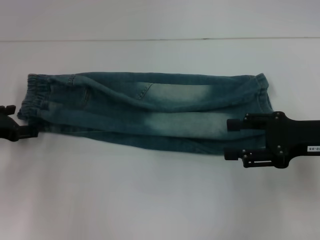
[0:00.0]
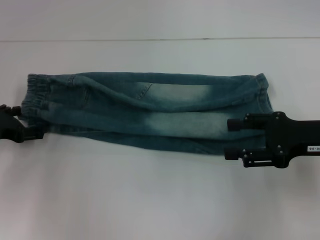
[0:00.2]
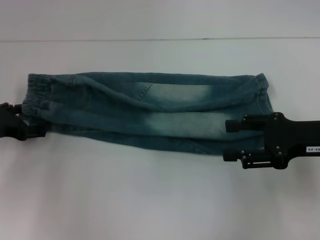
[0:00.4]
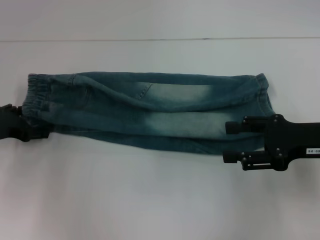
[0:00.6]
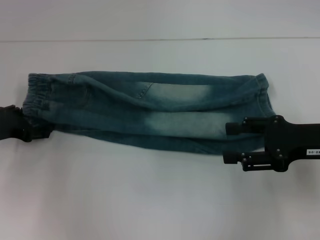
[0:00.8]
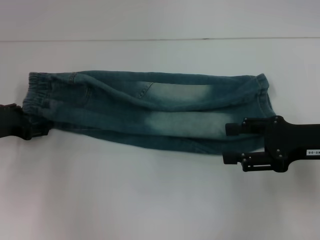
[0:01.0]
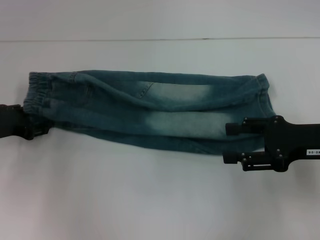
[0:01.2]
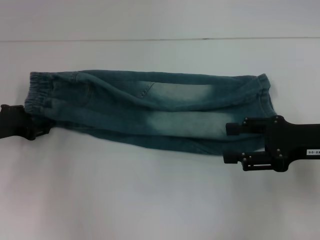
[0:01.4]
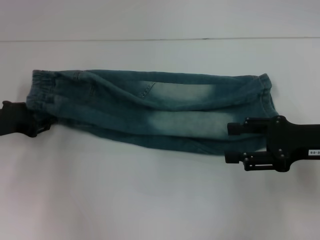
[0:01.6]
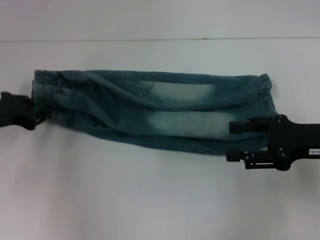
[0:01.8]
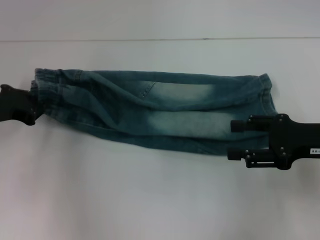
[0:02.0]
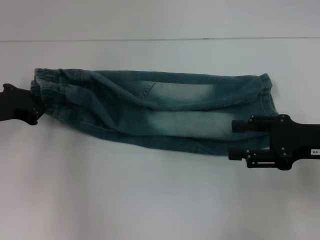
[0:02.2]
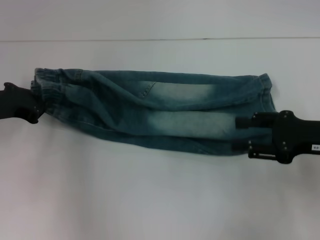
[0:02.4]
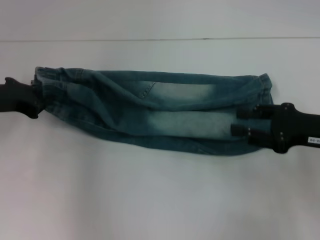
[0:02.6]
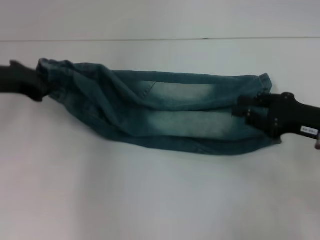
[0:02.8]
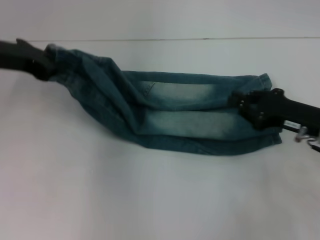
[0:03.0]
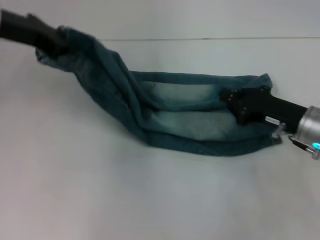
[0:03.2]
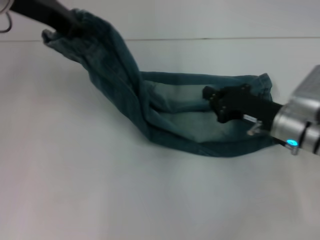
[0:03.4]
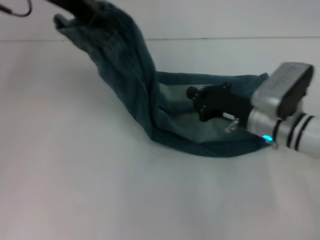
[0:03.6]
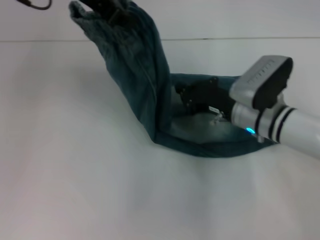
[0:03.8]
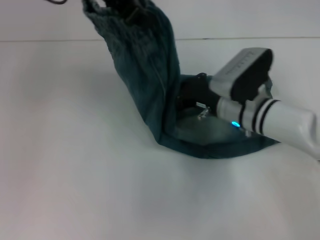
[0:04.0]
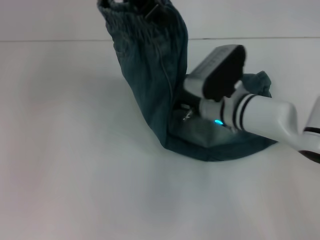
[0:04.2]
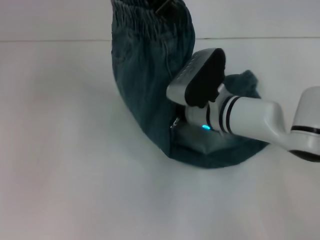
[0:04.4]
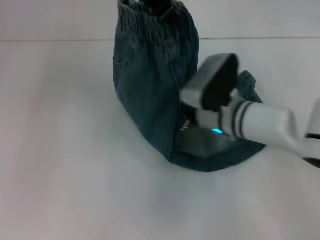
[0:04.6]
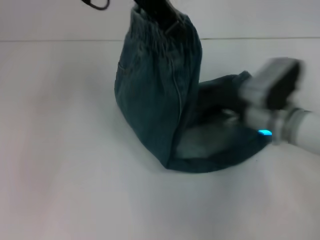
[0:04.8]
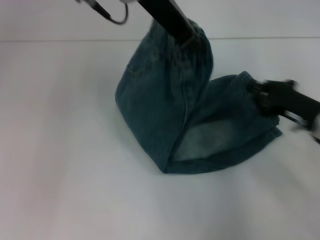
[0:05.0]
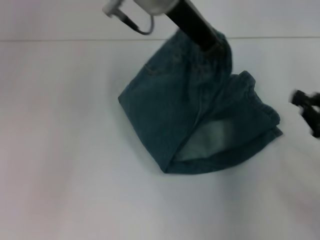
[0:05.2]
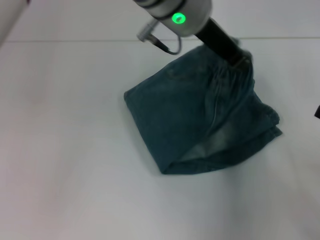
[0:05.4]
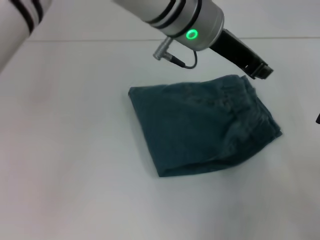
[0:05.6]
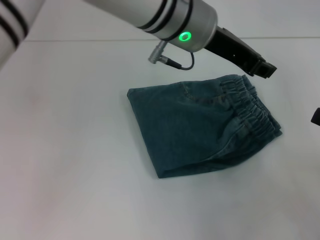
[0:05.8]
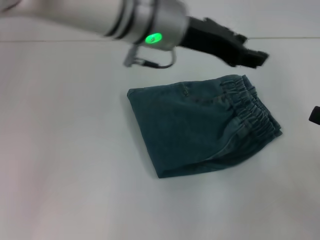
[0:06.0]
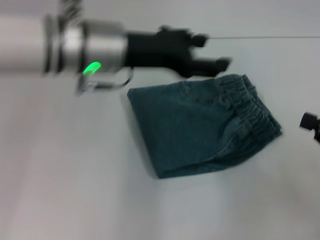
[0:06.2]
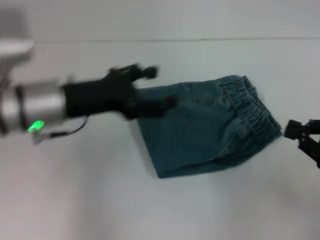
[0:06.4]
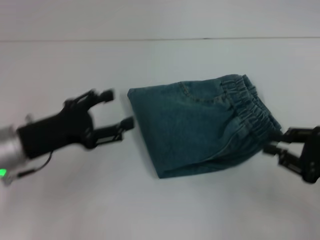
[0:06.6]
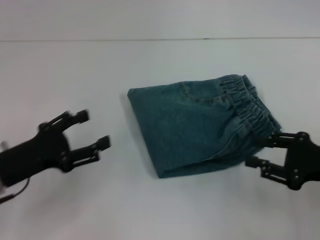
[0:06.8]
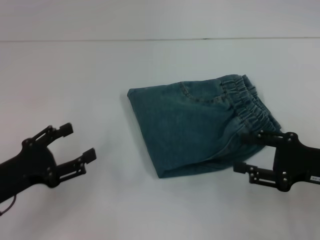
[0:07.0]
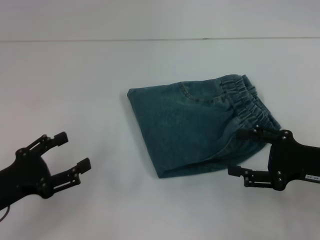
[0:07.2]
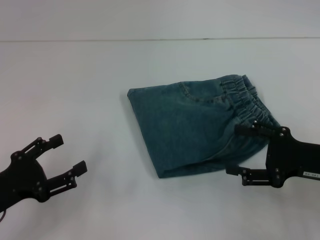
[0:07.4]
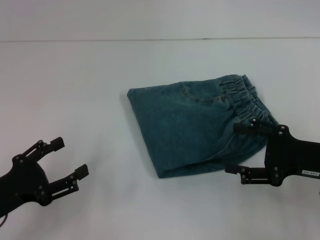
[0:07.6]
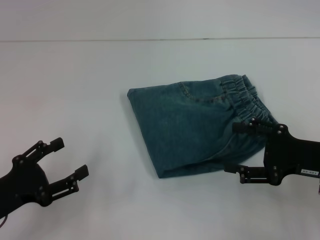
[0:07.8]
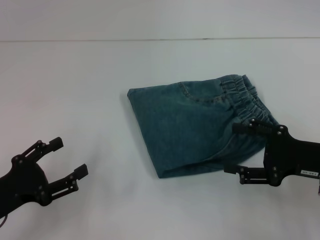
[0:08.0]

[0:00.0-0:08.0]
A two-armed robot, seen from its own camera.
Step, 0:00.0 to 0:02.0: Hold the waistband with your left hand.
Step, 0:02.2 to 0:04.6: Press the middle of the pants with your right hand.
Step, 0:04.8 to 0:05.8: Fold to the right with your left hand.
0:00.0 to 0:01.6: The left gripper closes its fingers.
0:01.6 to 0:03.2: The left gripper goes approximately 15 cm upward, and closes up. Meanwhile the right gripper travels downward by approximately 5 cm, and closes up.
0:03.2 to 0:04.8: The right gripper shifts about 5 cm to the left; the left gripper shifts some 20 cm to the right and upward.
0:04.8 to 0:06.4: The right gripper goes about 20 cm to the right and backward; the left gripper travels downward and to the left by roughly 20 cm, and opens.
0:06.4 to 0:08.0: The left gripper moves backward, to the left and downward, some 20 cm, while the right gripper shifts roughly 5 cm to the left, and opens its fingers.
